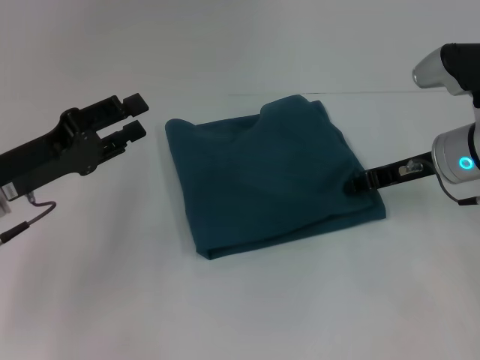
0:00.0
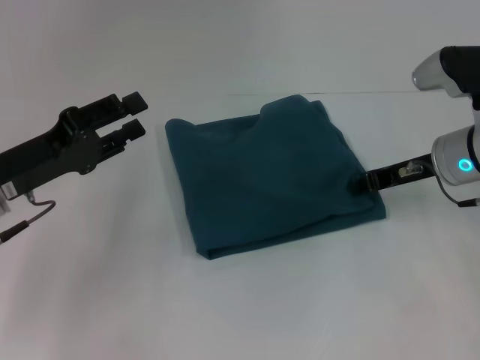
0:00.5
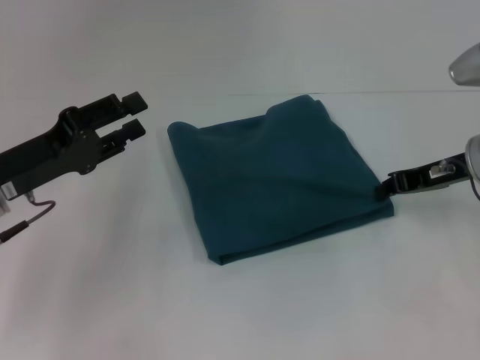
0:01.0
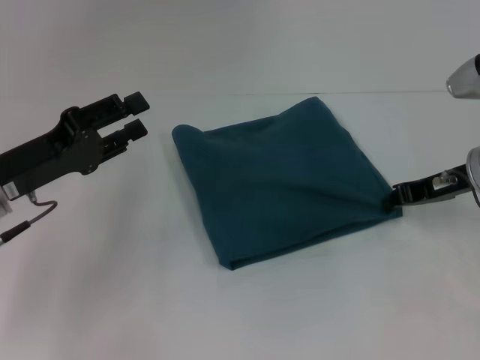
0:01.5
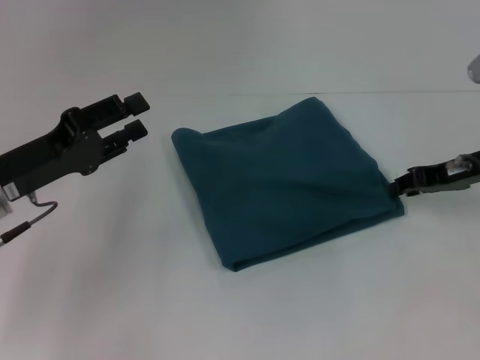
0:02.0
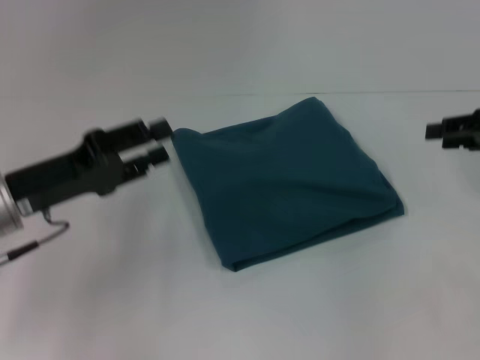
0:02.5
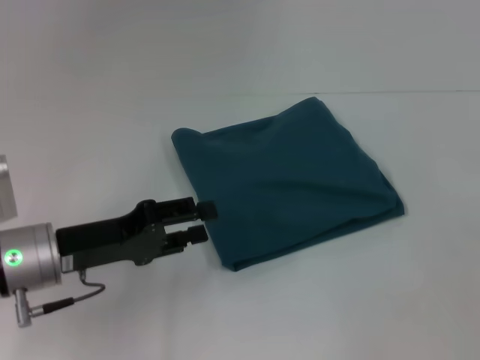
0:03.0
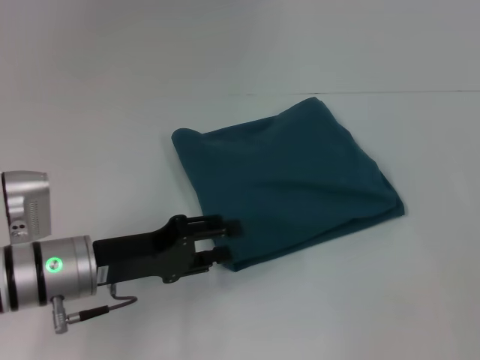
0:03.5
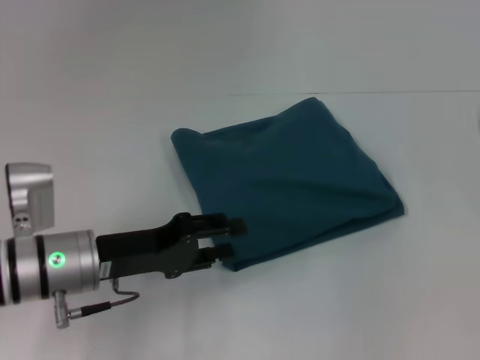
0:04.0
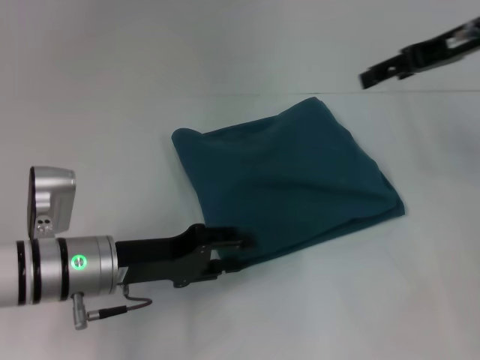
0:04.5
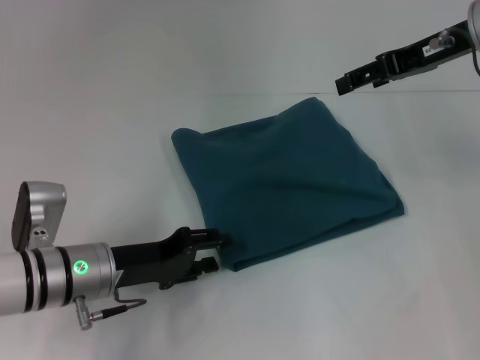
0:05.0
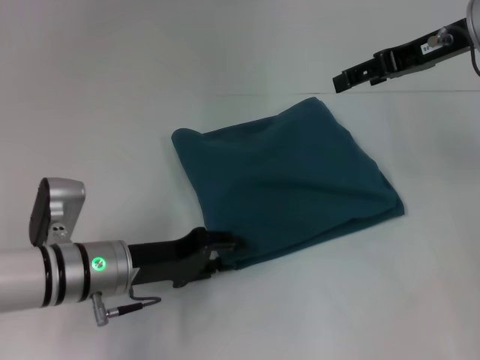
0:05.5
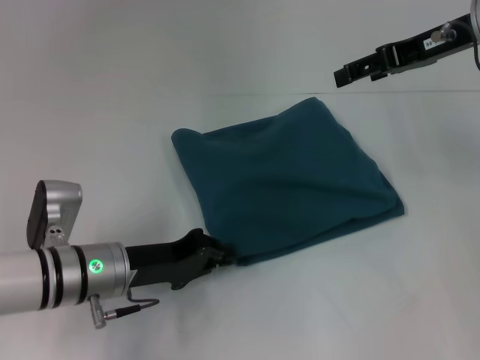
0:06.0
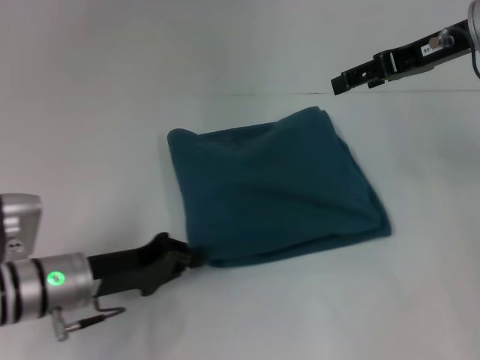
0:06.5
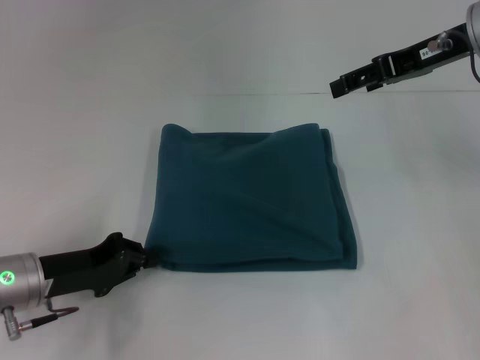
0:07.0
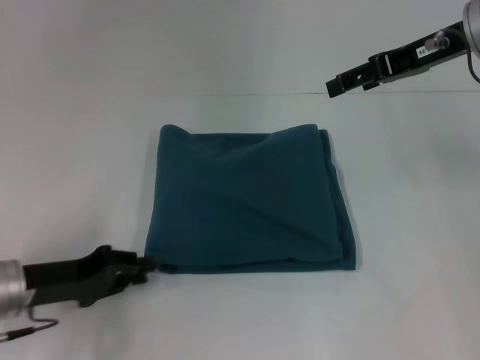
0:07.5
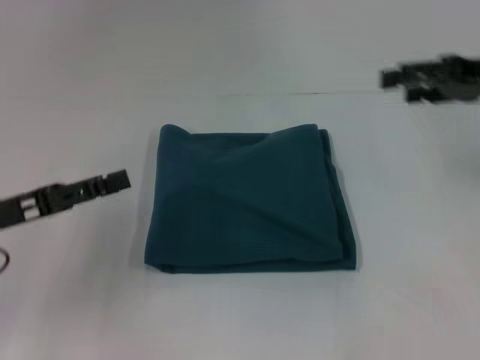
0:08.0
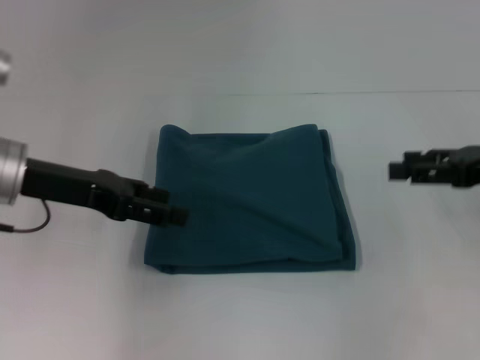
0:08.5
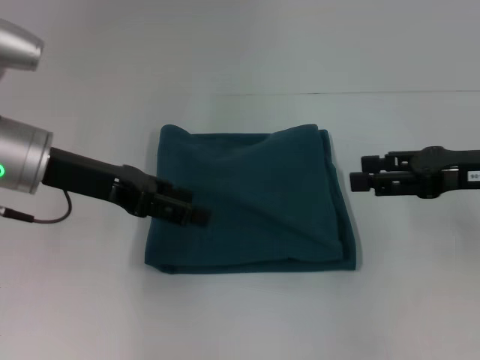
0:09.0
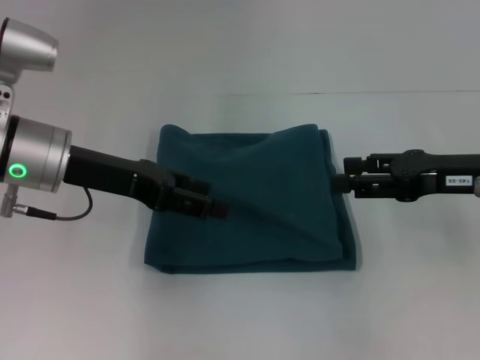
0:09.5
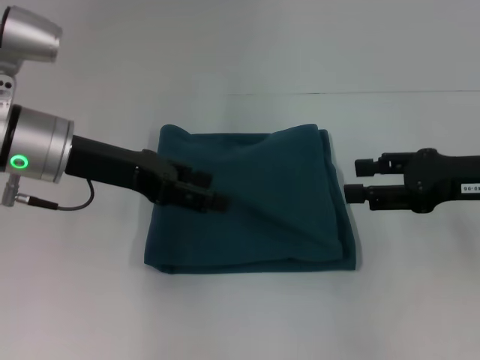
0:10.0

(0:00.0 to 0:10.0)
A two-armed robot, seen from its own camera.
0:00.0 - 0:02.0: There are only small adjustments of the grippers.
0:02.0 - 0:04.0: The left gripper heads to the right, covering about 5 cm. The right gripper is displaced to the right and upward by roughly 15 cm, and opens its fingers.
0:04.0 - 0:06.0: The right gripper goes approximately 20 cm to the left and forward.
0:06.0 - 0:08.0: The left gripper goes some 15 cm to the left and upward; the right gripper shifts some 5 cm to the right.
0:08.0 - 0:10.0: The right gripper moves backward and downward, roughly 10 cm. The left gripper goes approximately 15 cm to the right, forward and upward.
